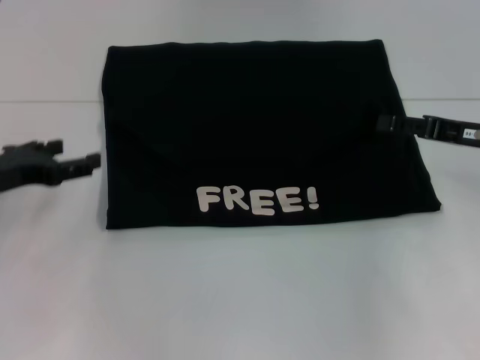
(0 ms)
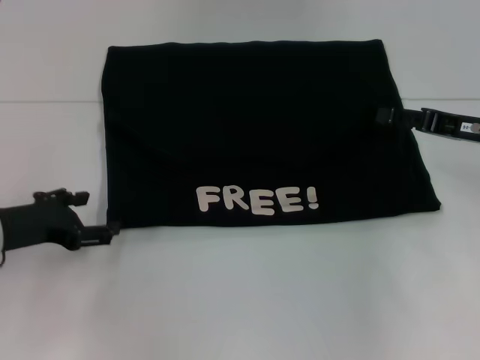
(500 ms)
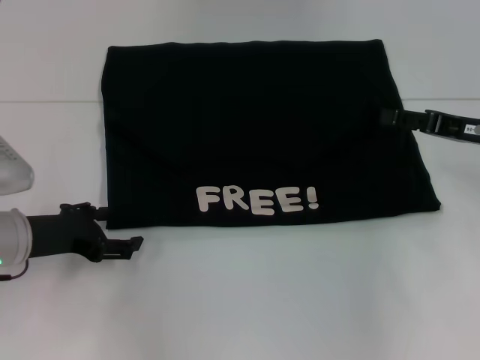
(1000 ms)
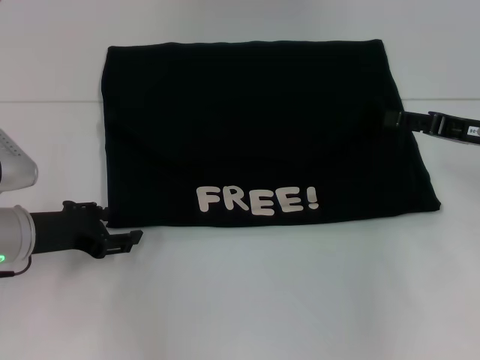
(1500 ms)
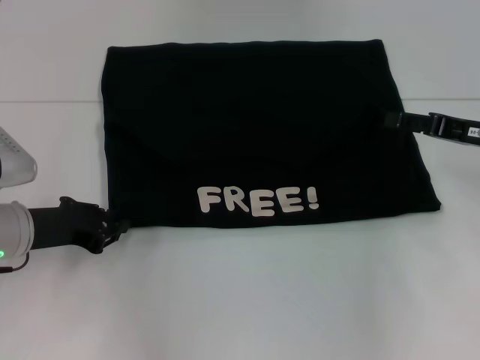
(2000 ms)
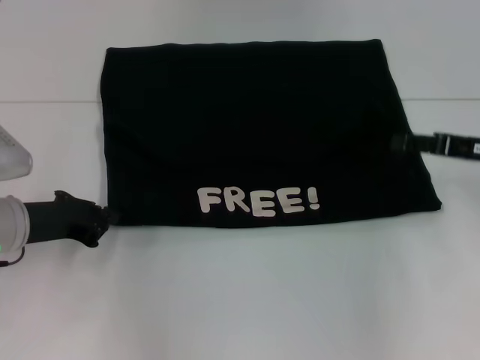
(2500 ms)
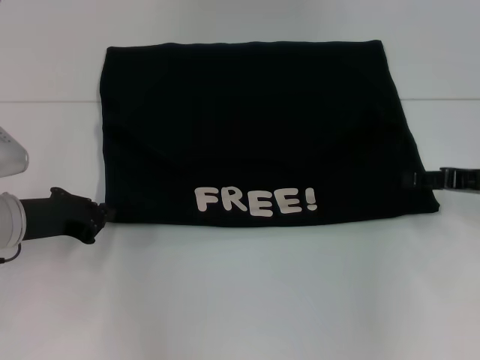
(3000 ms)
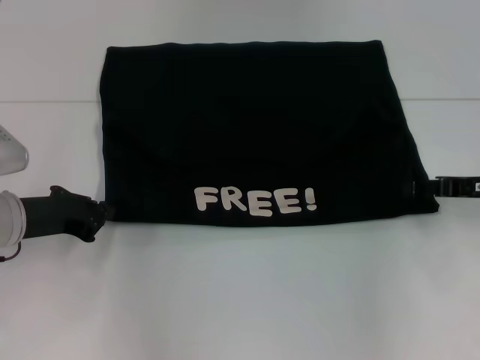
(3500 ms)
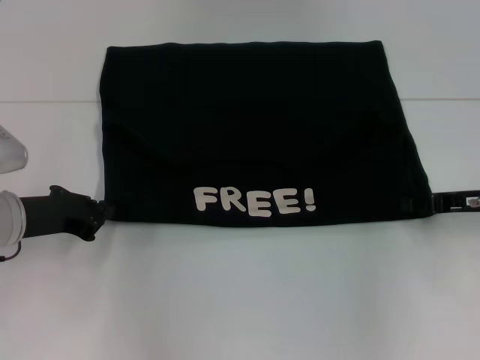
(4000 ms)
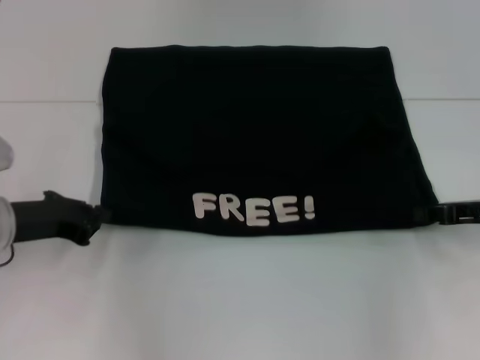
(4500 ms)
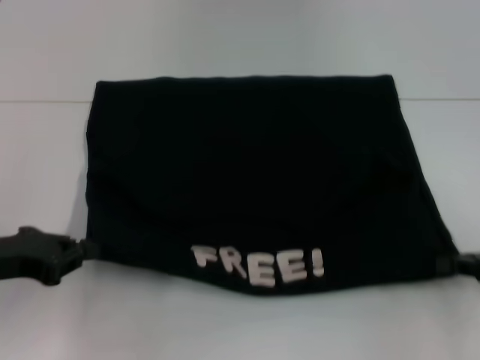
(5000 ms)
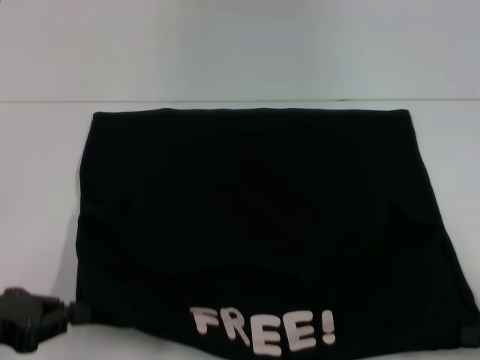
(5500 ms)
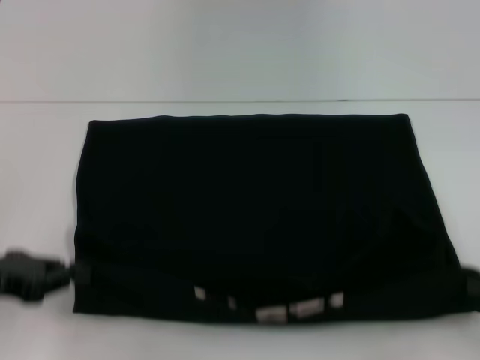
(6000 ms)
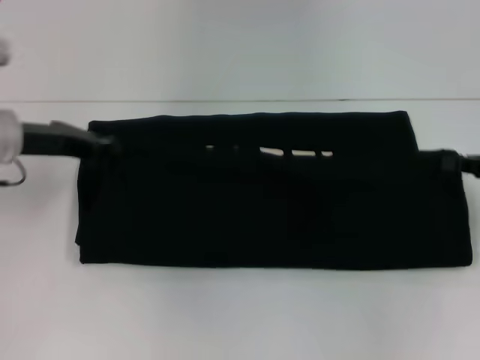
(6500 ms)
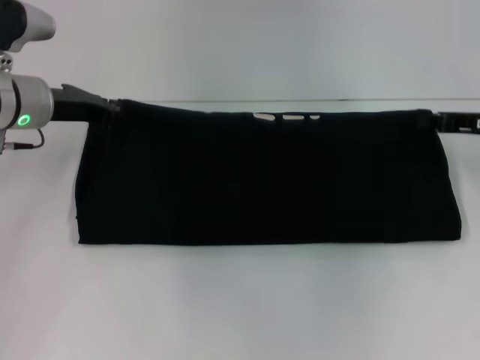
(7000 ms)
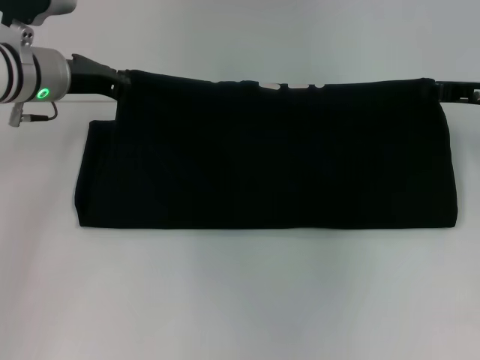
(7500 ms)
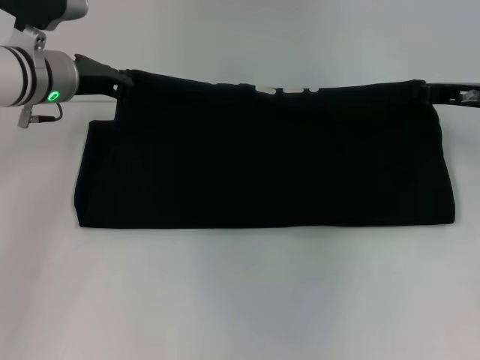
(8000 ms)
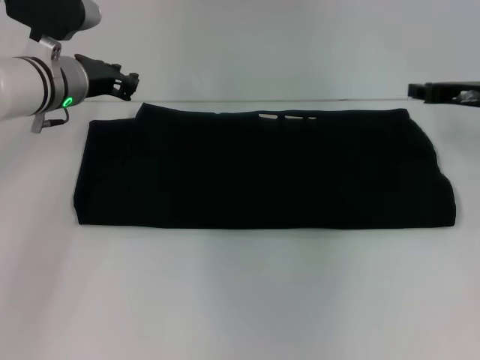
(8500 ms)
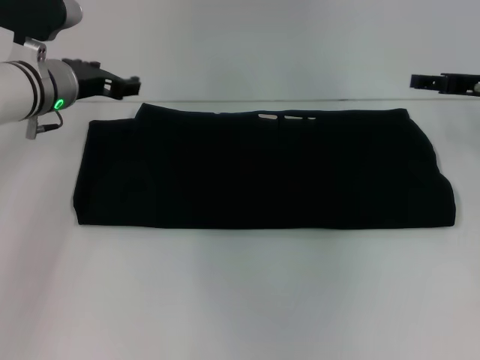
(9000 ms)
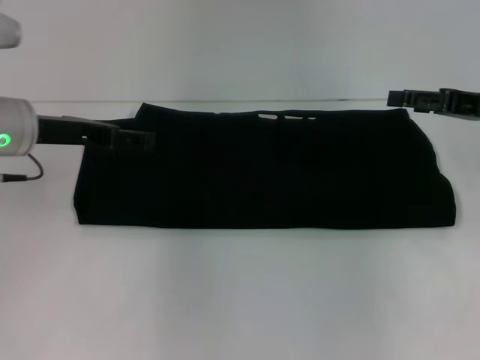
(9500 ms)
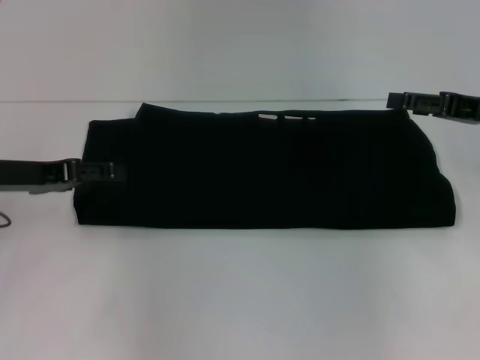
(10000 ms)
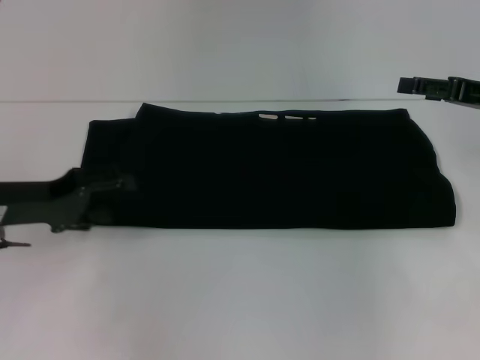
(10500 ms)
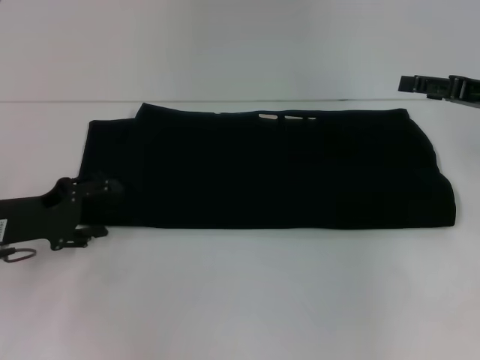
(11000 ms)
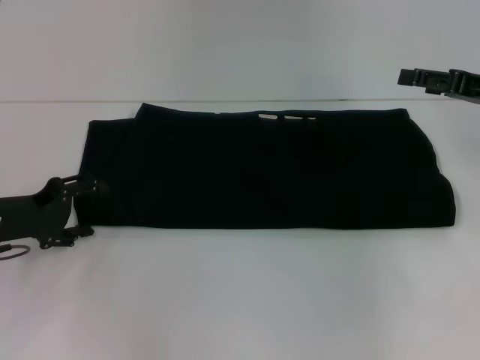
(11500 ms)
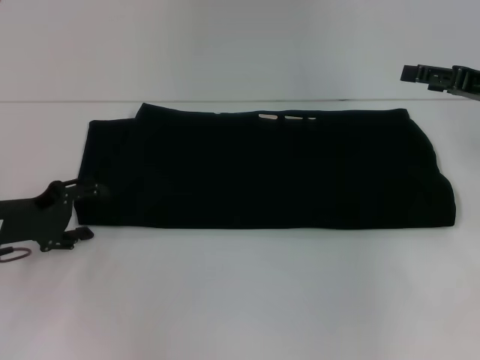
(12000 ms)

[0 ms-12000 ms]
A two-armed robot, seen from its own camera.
Step, 0 ms to 5500 ms: Pull the clothes with your left hand.
Step, 0 ms to 5500 ms: Pull the clothes with your right hand.
Step, 6000 ms to 8000 ms: Fold the clothes with your right hand.
0 ms to 2000 ms: The left gripper shifts by approximately 5 cm, and closes.
2000 ms to 4000 ms: The left gripper closes up.
4000 ms to 6000 ms: The right gripper goes roughly 15 cm backward and to the right, and closes its fingers, while the left gripper shifts about 10 cm backward.
6000 ms to 8000 ms: The left gripper travels forward and to the right by approximately 25 cm. The right gripper shifts roughly 25 cm forward and to the left.
8000 ms to 10000 ms: The right gripper moves approximately 5 cm, and opens; the left gripper travels backward and to the left by some 15 cm, and opens its fingers.
10000 ms to 12000 ms: The left gripper shifts some 5 cm downward.

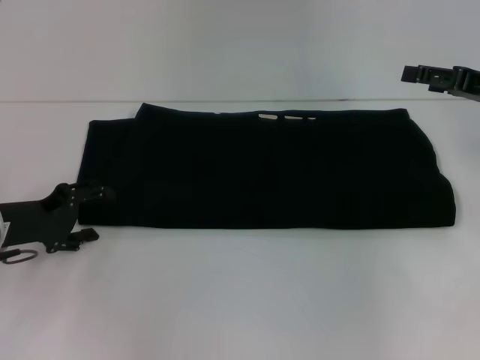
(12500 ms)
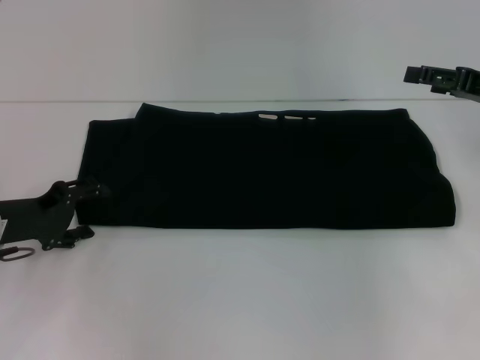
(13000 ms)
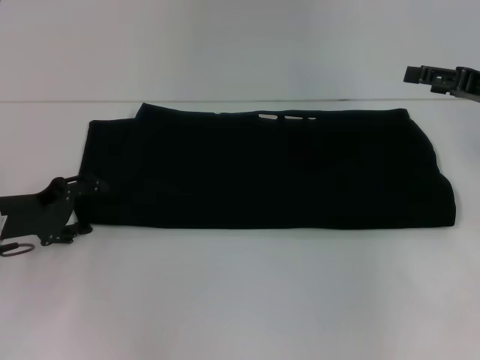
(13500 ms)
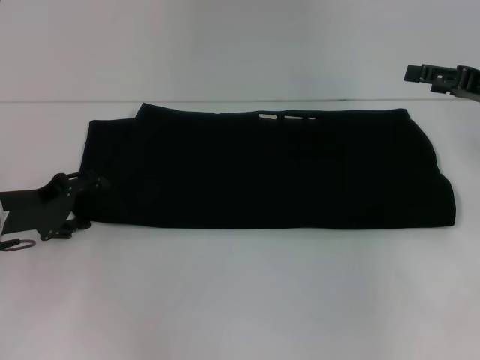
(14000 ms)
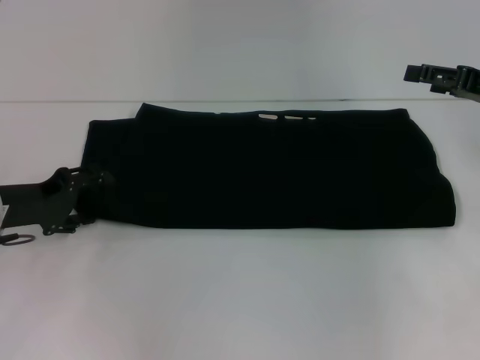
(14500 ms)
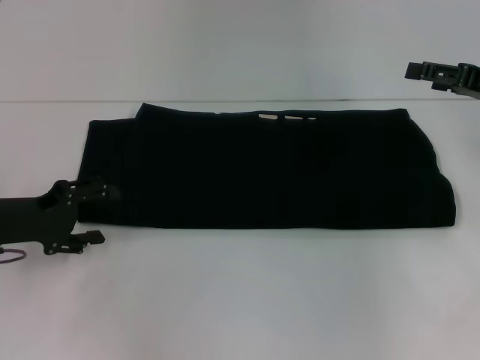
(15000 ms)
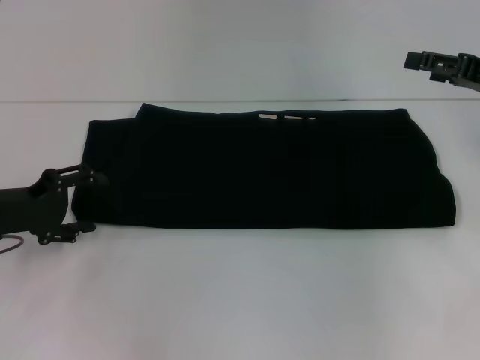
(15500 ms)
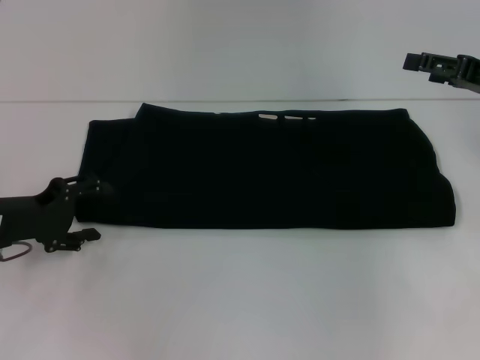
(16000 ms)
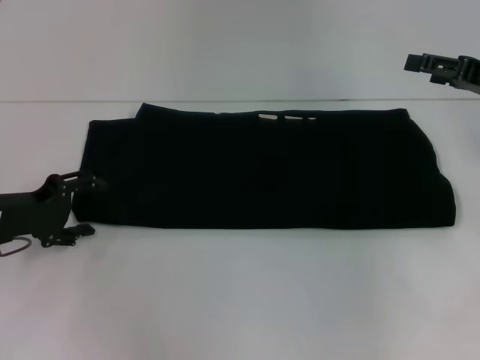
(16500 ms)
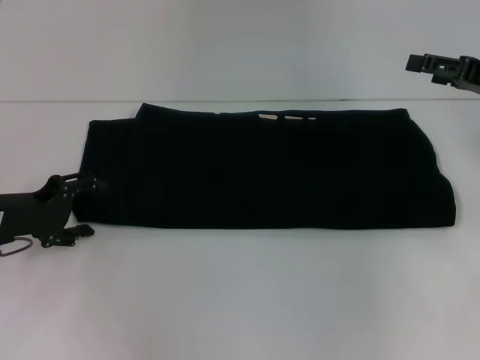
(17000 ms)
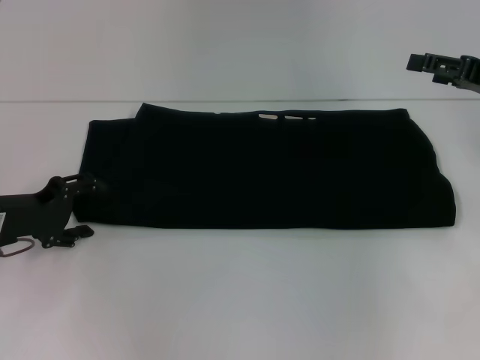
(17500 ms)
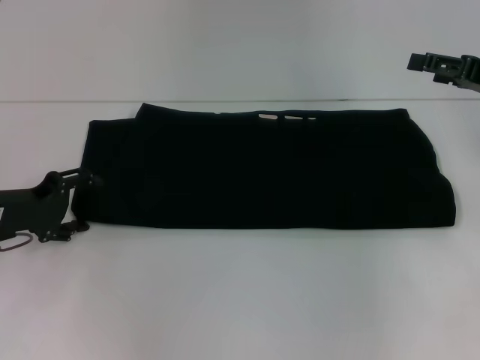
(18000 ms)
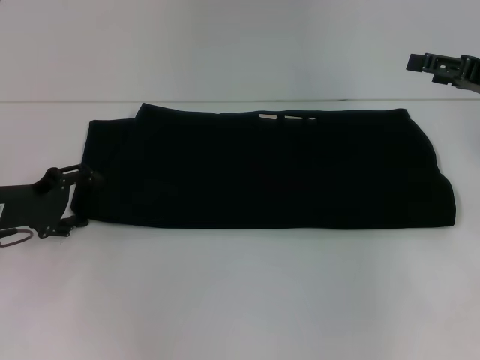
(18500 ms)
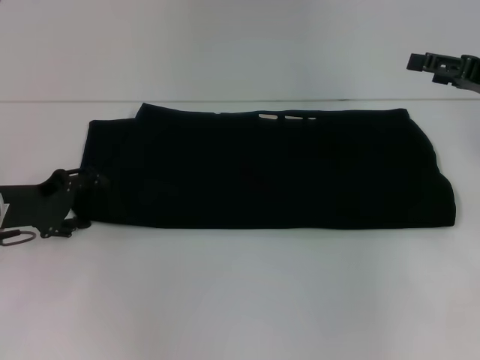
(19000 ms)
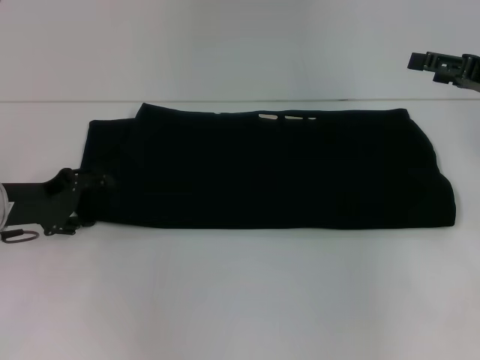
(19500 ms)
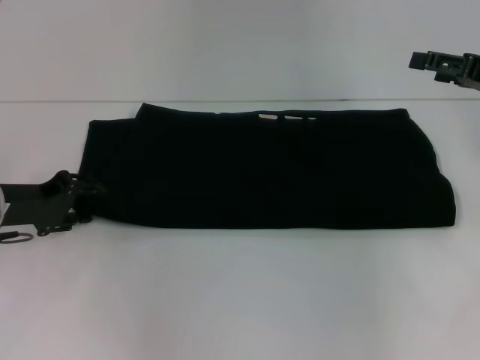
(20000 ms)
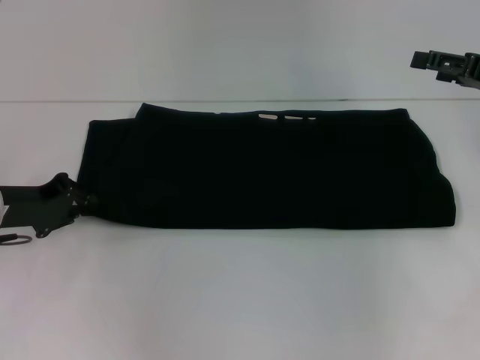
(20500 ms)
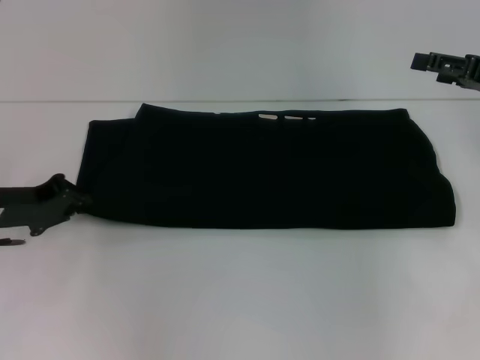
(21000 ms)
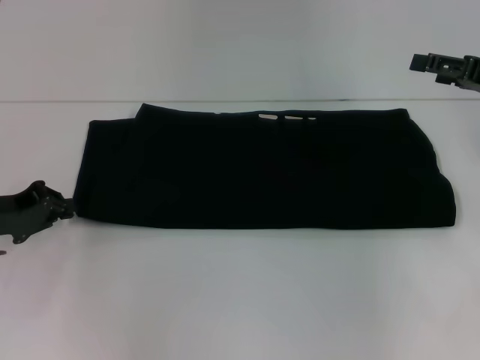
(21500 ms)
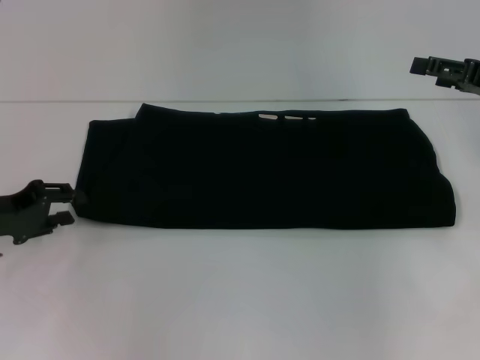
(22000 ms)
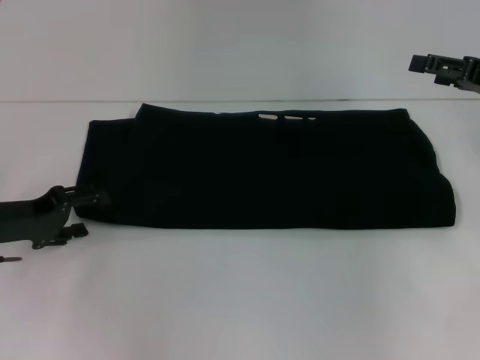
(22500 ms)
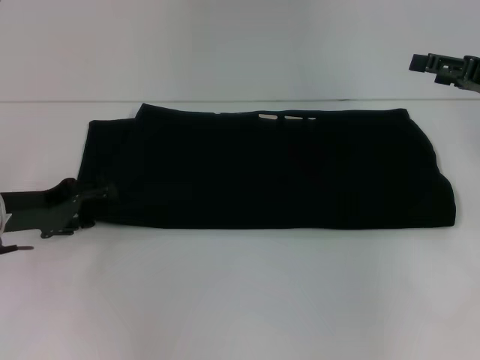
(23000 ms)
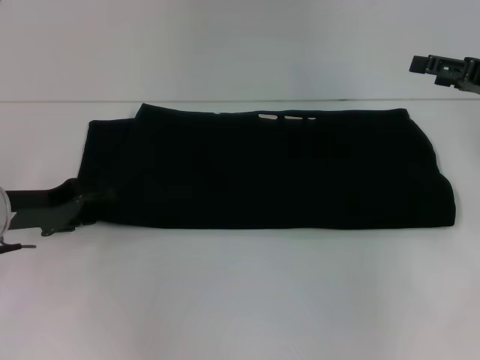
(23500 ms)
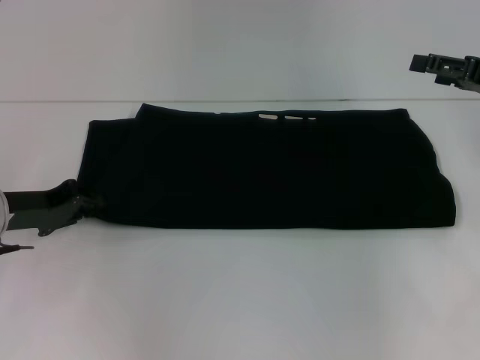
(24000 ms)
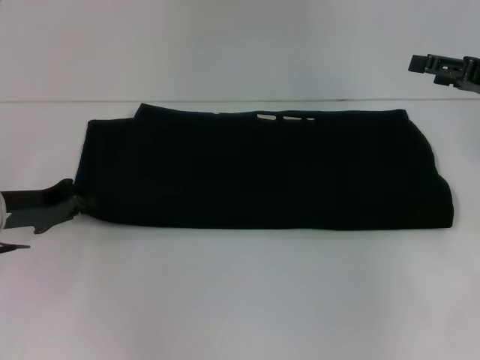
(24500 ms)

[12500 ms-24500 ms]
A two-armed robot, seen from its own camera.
12500 ms to 18500 ms: The grippers make only small movements.
18500 ms to 20500 ms: The left gripper closes.
20500 ms to 22500 ms: The left gripper opens its fingers.
22500 ms to 24500 ms: The left gripper closes.

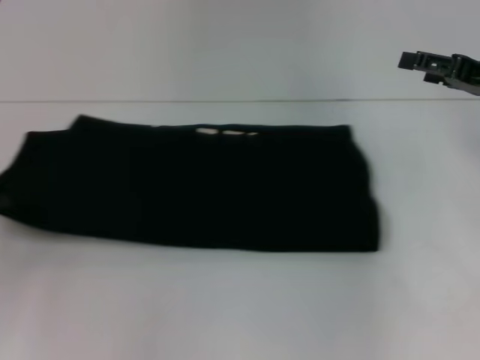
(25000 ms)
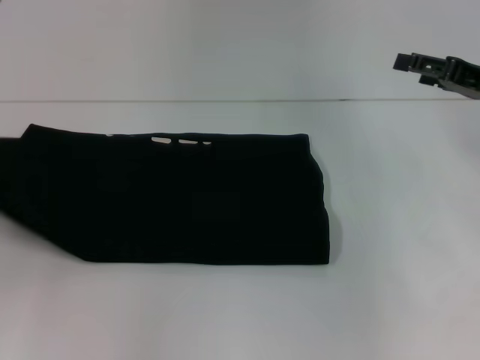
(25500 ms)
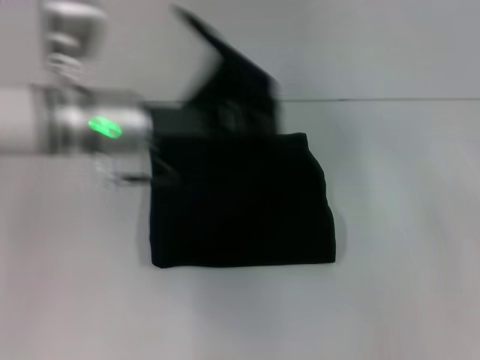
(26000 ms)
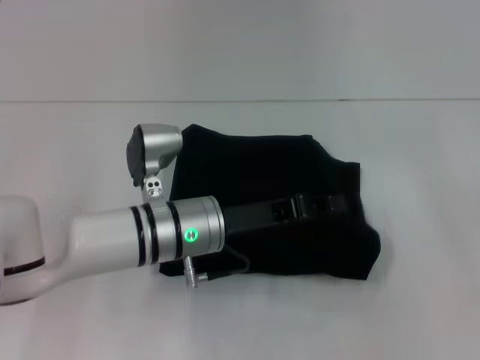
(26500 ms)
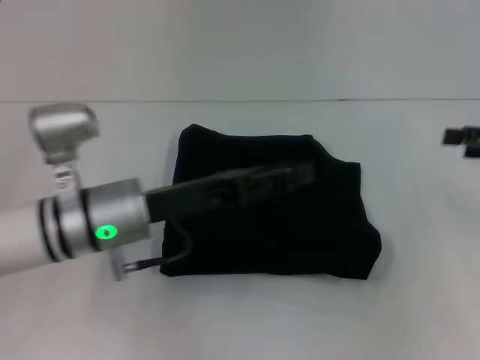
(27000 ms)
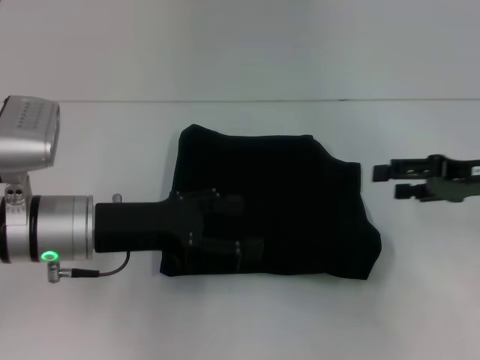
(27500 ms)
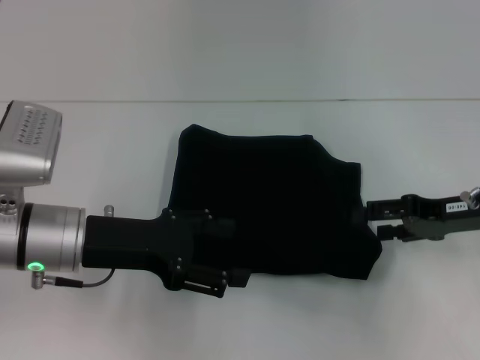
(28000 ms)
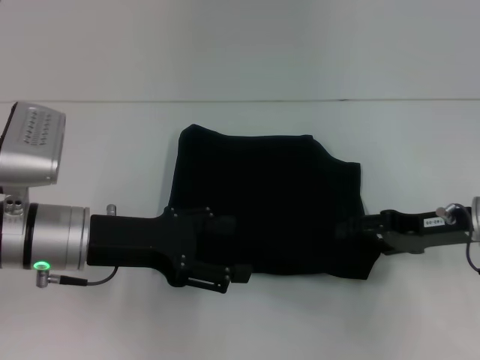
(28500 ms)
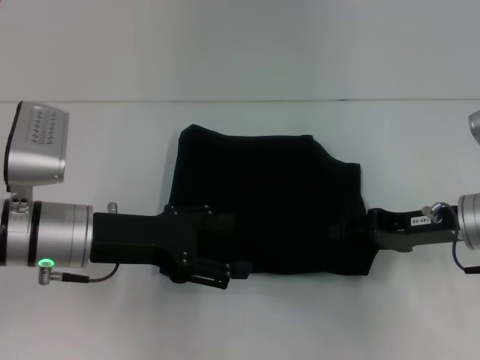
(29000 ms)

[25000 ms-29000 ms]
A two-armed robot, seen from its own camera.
25000 ms to 27000 ms: The left gripper is displaced to the right by approximately 25 cm, and opens its fingers. The right gripper moves to the right, some 5 cm.
27000 ms to 29000 ms: The right gripper travels to the left and downward by approximately 15 cm, while the left gripper opens its fingers.
